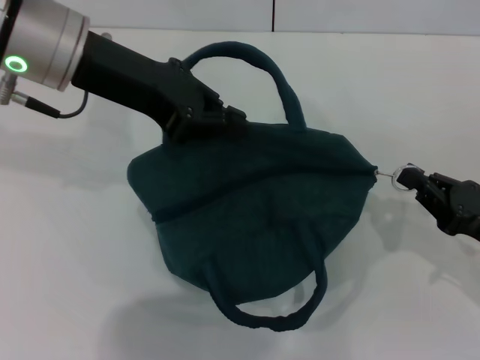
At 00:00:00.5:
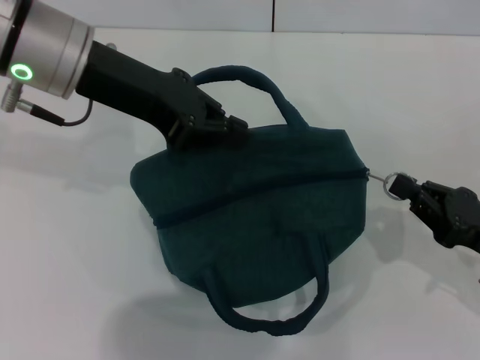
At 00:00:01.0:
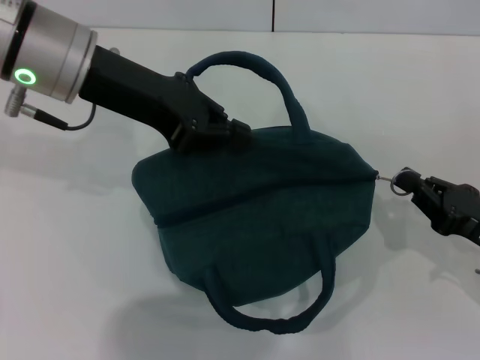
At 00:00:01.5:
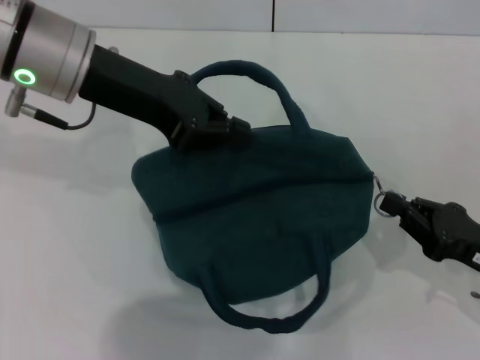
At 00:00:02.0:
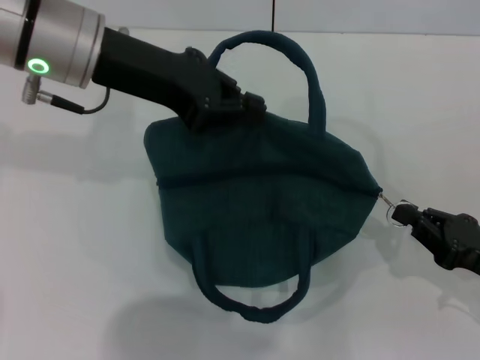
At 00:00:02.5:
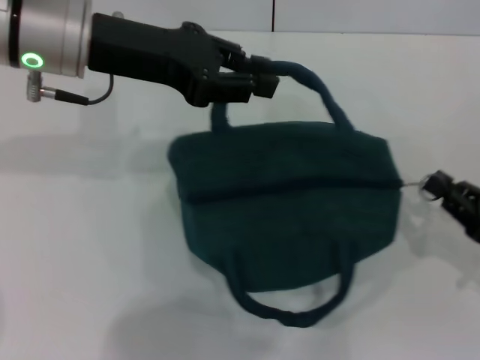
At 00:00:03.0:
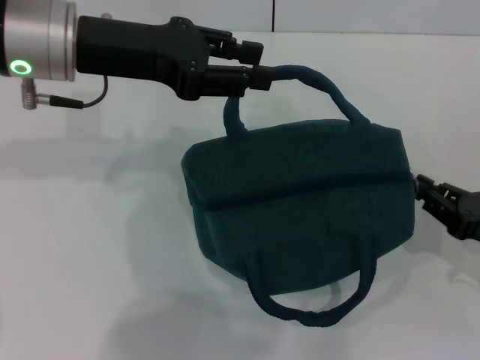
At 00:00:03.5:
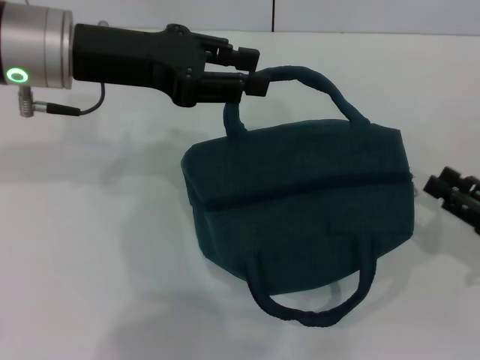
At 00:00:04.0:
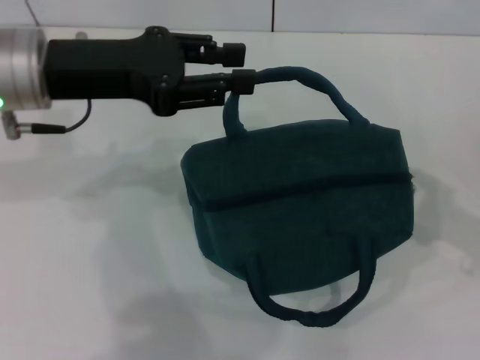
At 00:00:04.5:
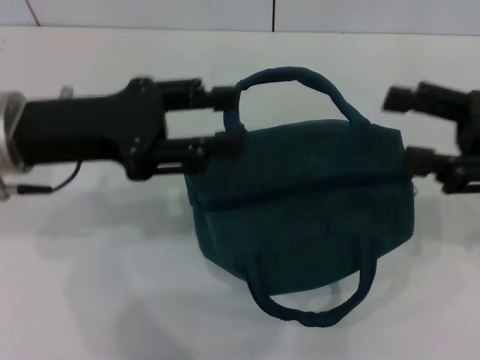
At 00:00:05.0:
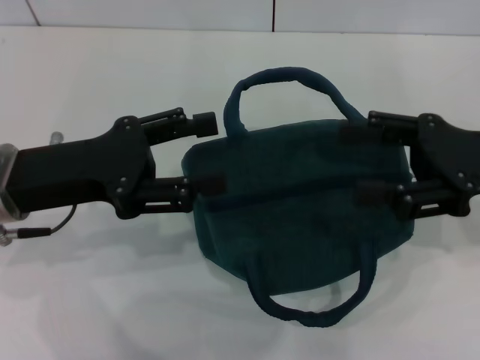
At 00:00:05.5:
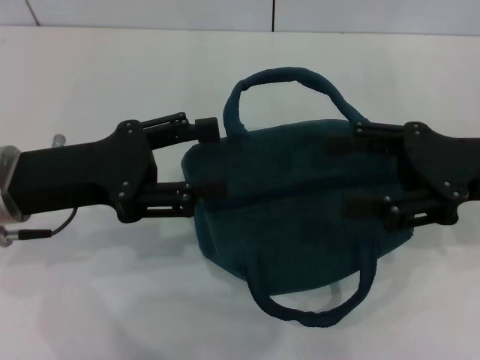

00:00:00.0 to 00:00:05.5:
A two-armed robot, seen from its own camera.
Step, 00:00:00.0 to 00:00:02.0: Hold the lunch bag with your left hand.
Step, 00:00:02.5 to 00:00:03.0: Zip up the lunch bag with your right hand.
00:00:00.0 to 00:00:02.0: The grippers stay close to where they were, moving slightly.
00:00:02.0 to 00:00:03.5: The left gripper opens. Meanwhile the right gripper opens up.
00:00:03.5 to 00:00:05.5: The right gripper moves upward, to the left and forward, roughly 15 cm, and opens up. Meanwhile the left gripper moves backward and downward, approximately 10 cm, and opens its fingers.
